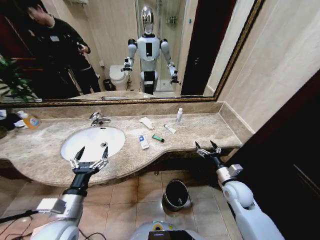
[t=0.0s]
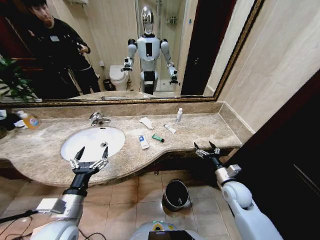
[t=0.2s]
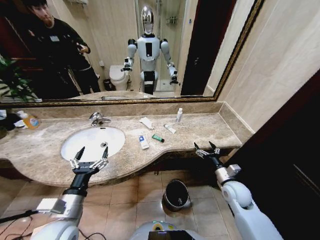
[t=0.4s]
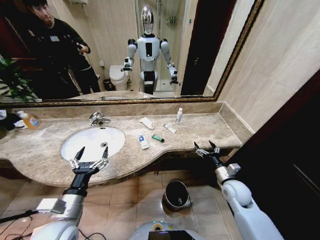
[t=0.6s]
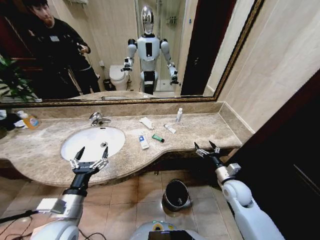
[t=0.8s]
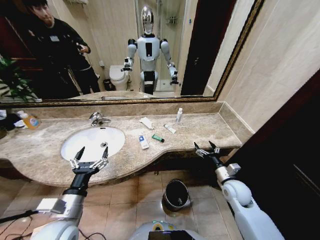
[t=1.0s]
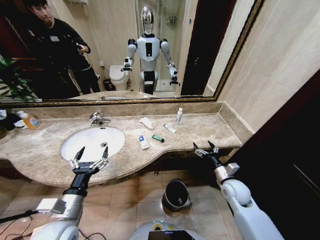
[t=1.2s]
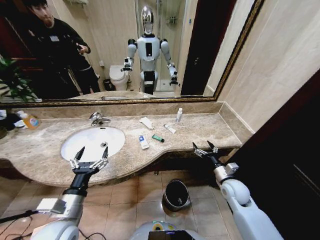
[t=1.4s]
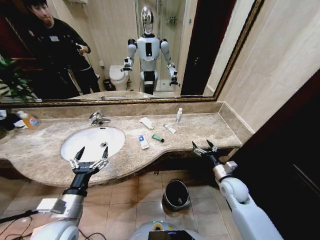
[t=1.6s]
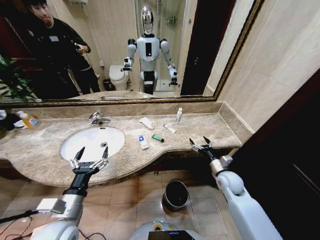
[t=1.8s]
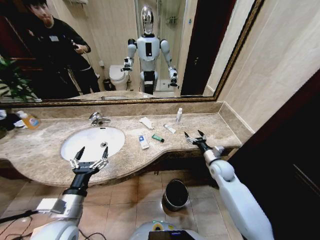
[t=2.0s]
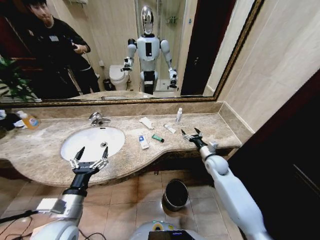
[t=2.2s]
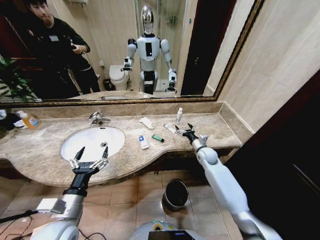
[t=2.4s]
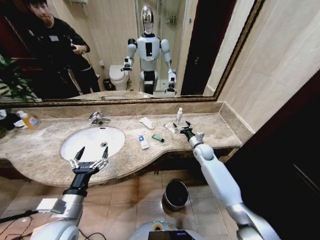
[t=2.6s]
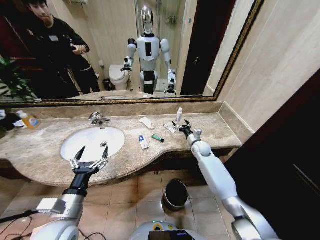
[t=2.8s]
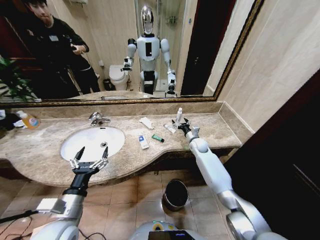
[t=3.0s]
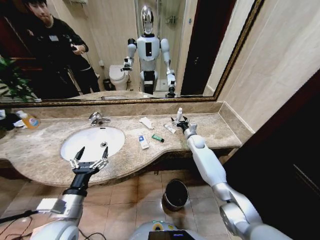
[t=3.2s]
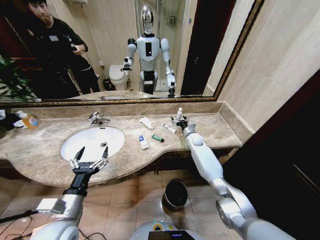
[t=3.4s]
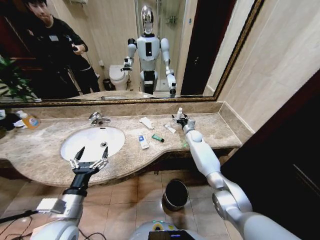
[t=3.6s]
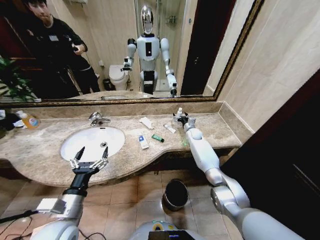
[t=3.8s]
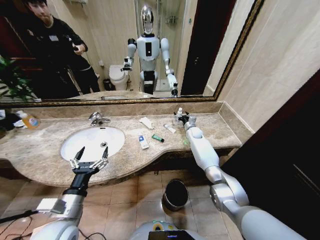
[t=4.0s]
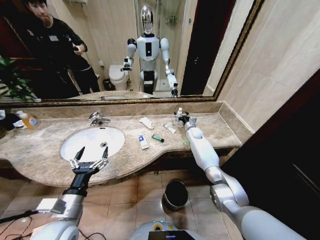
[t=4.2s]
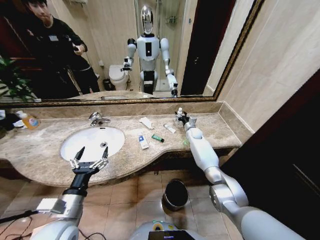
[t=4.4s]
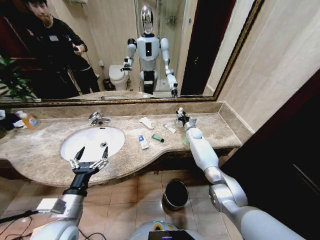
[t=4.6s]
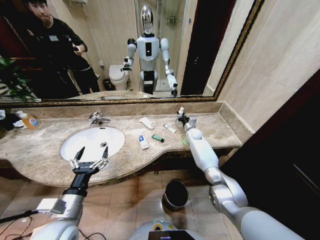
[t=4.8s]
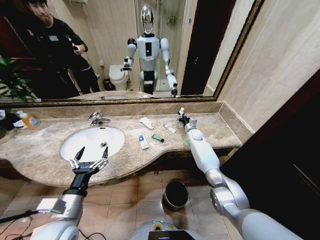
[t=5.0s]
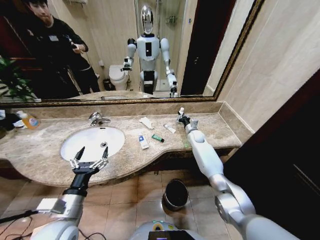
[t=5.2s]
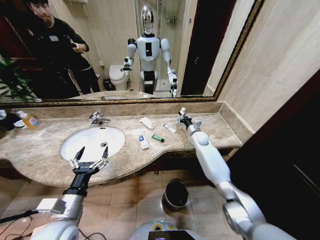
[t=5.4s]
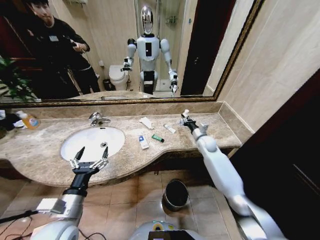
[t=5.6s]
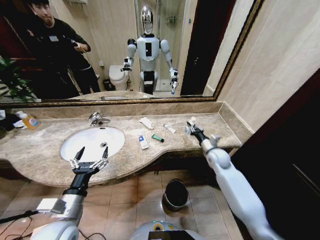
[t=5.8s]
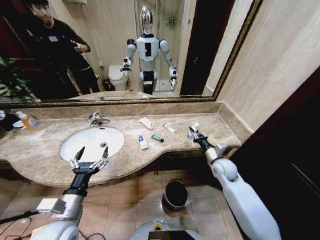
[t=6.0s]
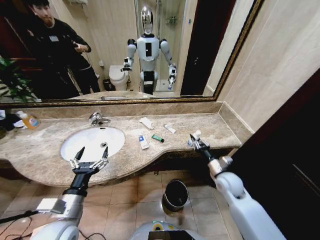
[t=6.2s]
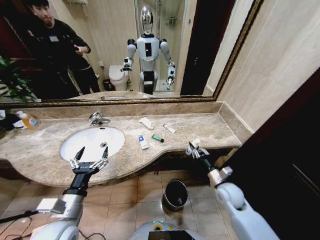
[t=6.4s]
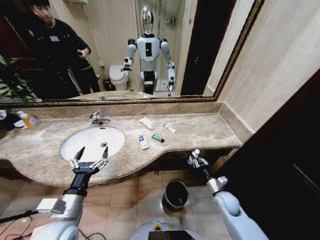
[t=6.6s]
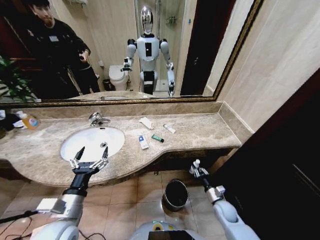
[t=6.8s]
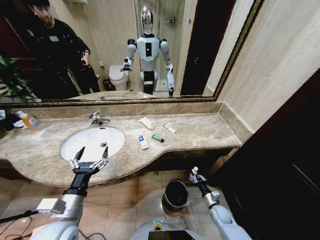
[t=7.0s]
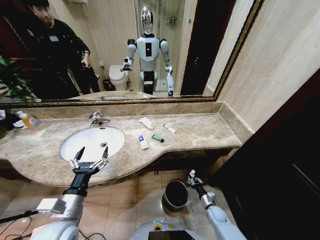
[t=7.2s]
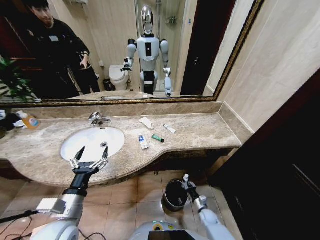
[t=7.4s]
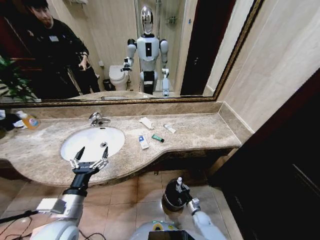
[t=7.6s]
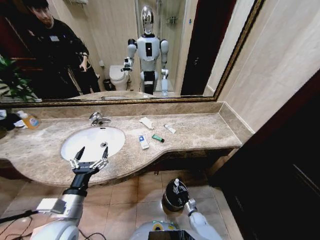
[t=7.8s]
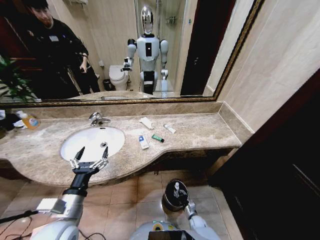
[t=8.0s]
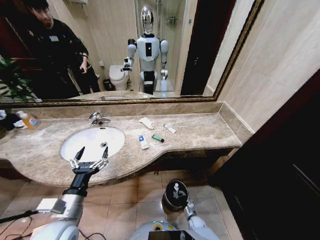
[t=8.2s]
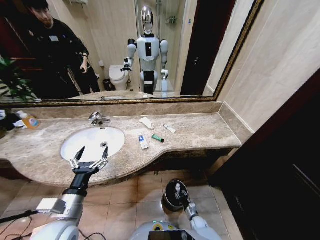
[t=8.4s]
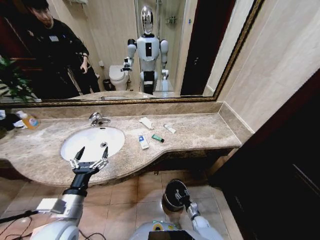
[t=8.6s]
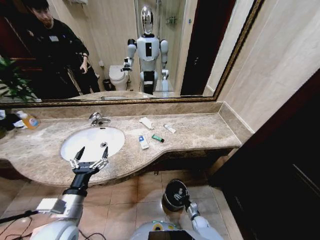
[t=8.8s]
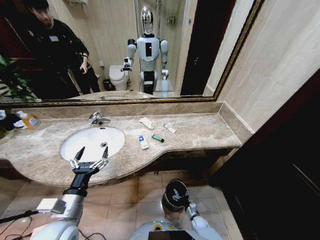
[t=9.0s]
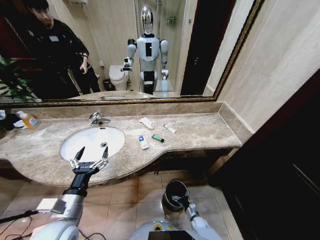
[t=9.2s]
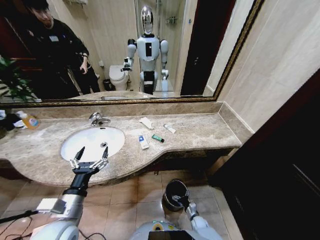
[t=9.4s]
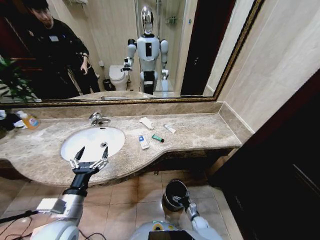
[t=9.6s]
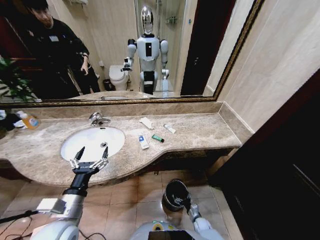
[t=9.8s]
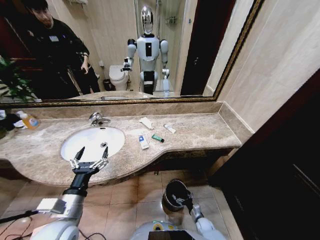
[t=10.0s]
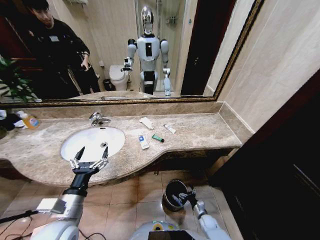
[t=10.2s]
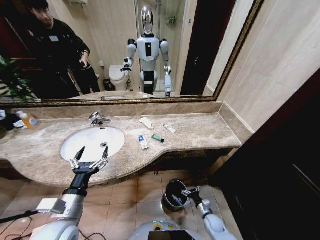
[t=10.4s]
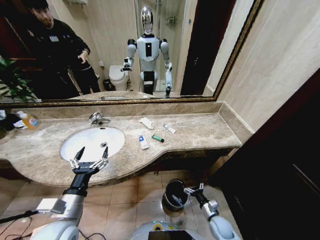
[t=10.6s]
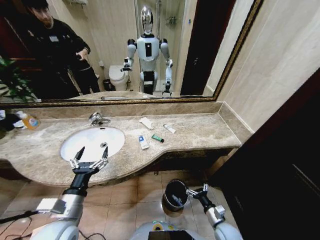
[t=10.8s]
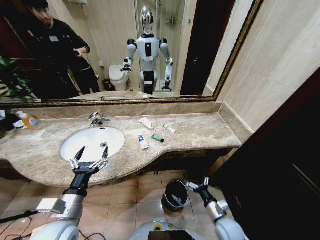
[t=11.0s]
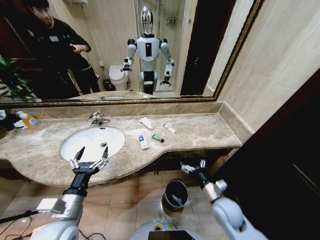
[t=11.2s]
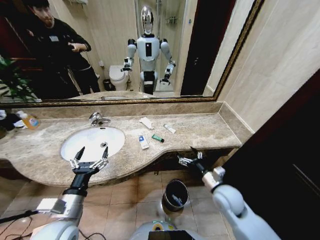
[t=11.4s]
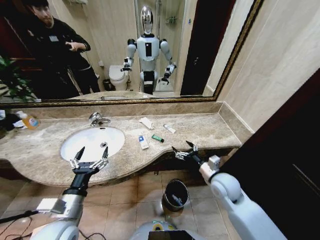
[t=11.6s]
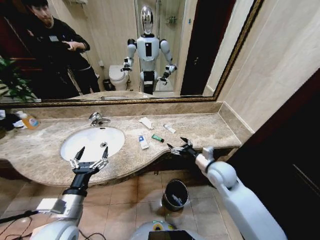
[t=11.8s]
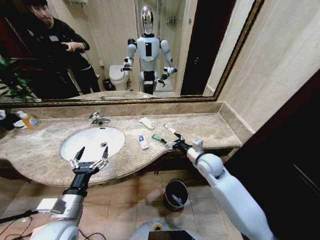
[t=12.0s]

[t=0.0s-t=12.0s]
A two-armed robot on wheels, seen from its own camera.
Task of the whole recording: Pick up the trash from the sink and place it in the trash bin.
t=1.6s to t=3.0s: The right gripper goes roughly 25 cm forward.
t=3.0s to t=4.4s: The right gripper goes some 10 cm forward.
t=4.4s to t=6.0s: The right gripper goes approximately 25 cm backward, and closes.
t=6.0s to t=7.6s: The right gripper heads downward and backward, covering about 40 cm.
t=7.6s to t=9.0s: The right gripper opens up.
t=9.0s to t=10.4s: The right gripper goes some 10 cm upward.
t=10.4s to t=12.0s: The right gripper travels upward and forward by about 40 cm.

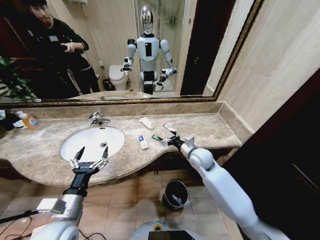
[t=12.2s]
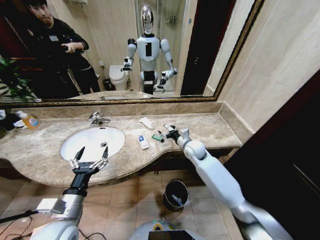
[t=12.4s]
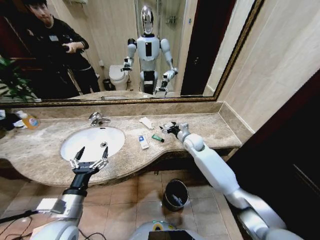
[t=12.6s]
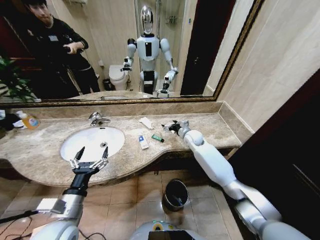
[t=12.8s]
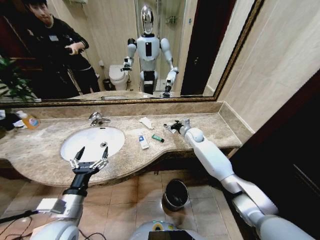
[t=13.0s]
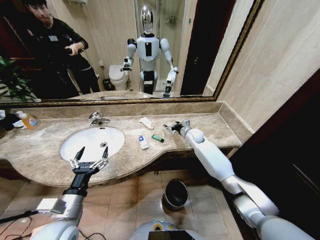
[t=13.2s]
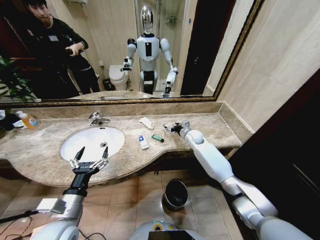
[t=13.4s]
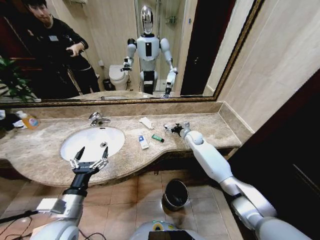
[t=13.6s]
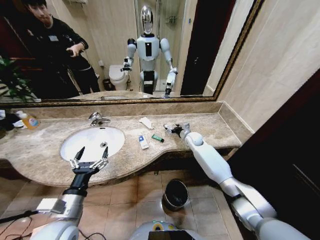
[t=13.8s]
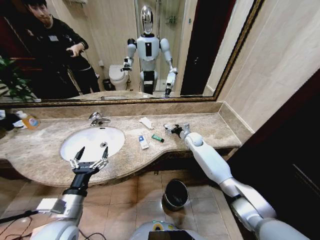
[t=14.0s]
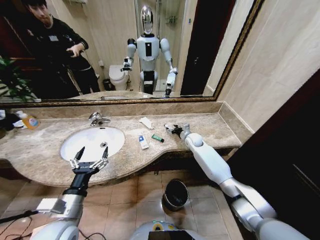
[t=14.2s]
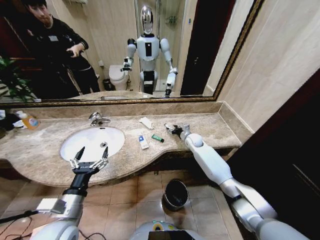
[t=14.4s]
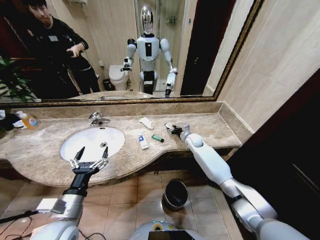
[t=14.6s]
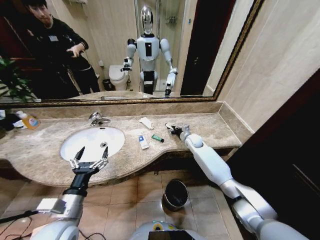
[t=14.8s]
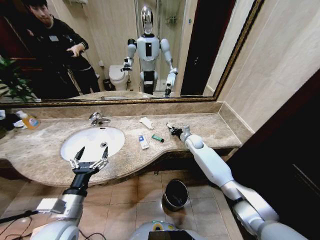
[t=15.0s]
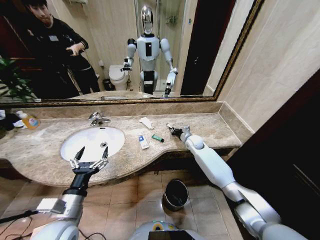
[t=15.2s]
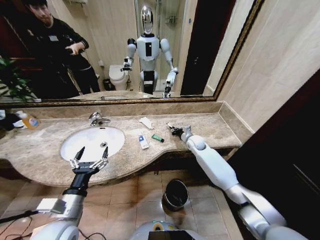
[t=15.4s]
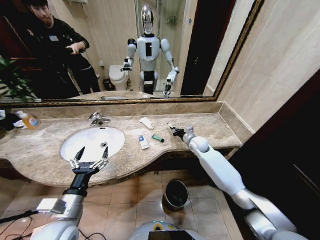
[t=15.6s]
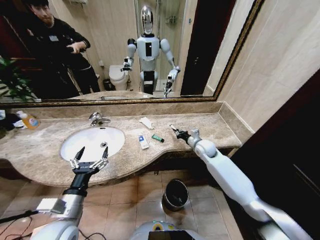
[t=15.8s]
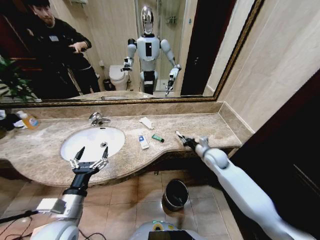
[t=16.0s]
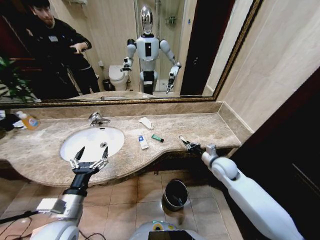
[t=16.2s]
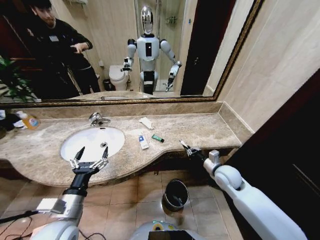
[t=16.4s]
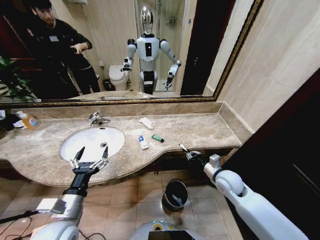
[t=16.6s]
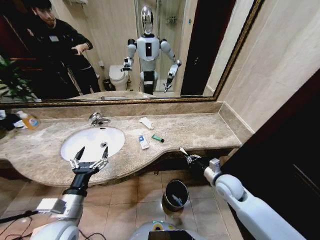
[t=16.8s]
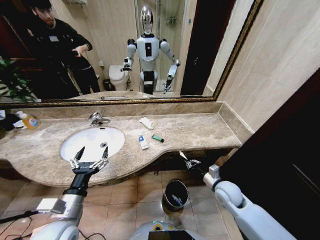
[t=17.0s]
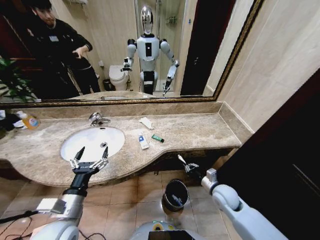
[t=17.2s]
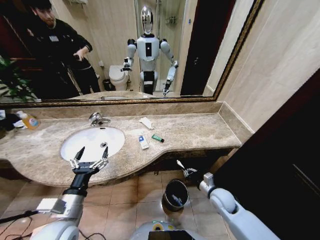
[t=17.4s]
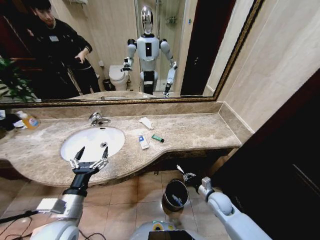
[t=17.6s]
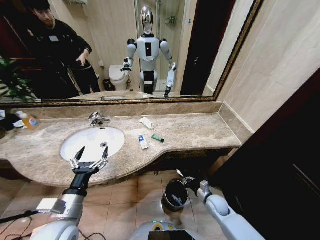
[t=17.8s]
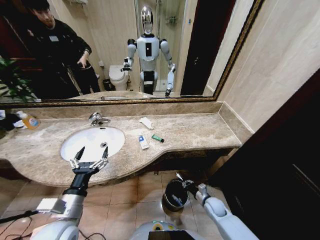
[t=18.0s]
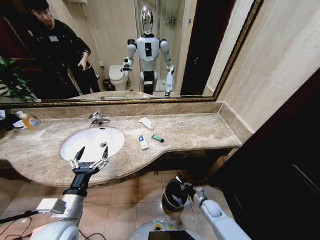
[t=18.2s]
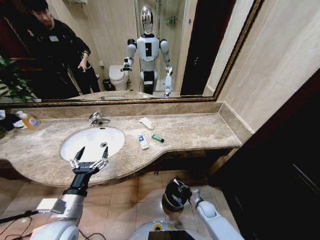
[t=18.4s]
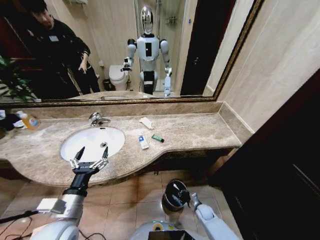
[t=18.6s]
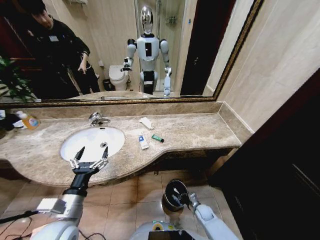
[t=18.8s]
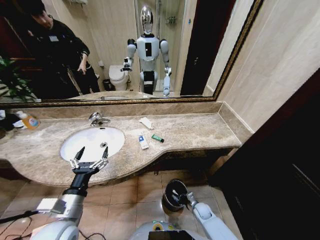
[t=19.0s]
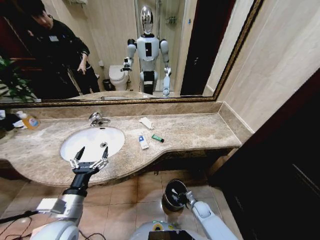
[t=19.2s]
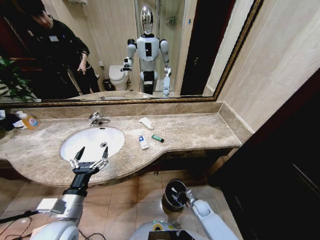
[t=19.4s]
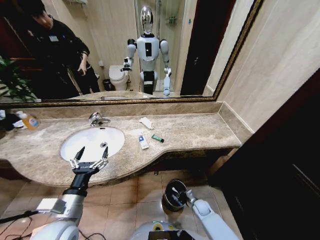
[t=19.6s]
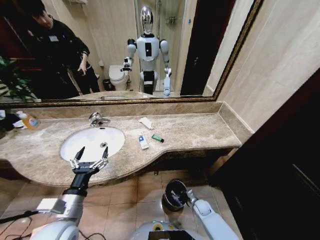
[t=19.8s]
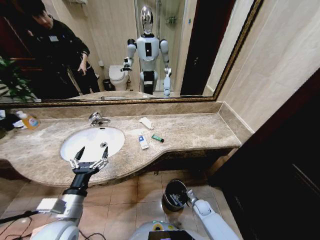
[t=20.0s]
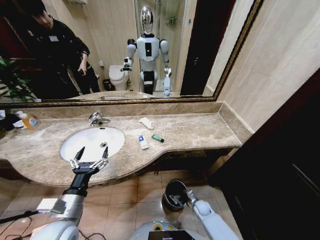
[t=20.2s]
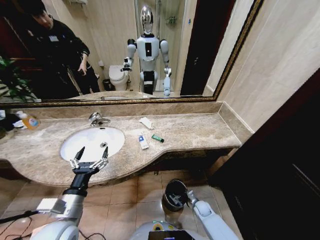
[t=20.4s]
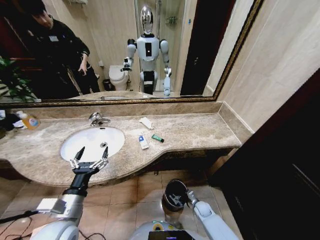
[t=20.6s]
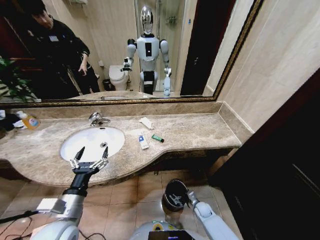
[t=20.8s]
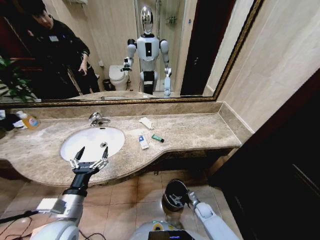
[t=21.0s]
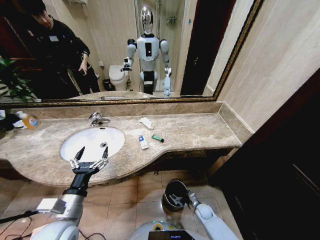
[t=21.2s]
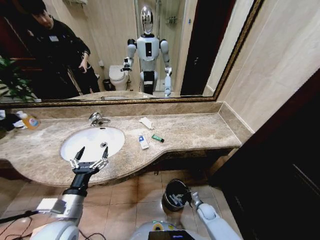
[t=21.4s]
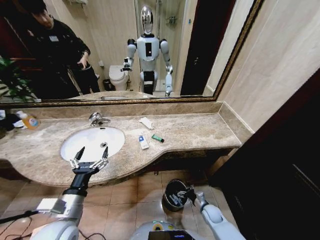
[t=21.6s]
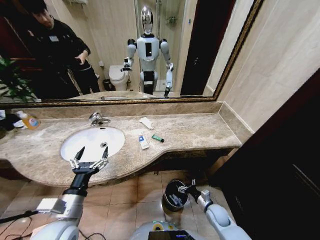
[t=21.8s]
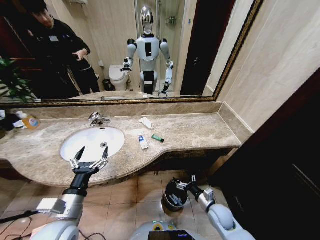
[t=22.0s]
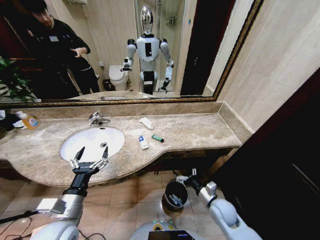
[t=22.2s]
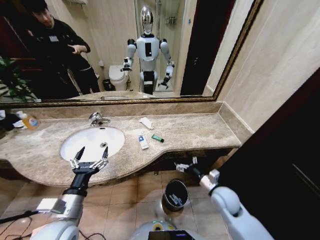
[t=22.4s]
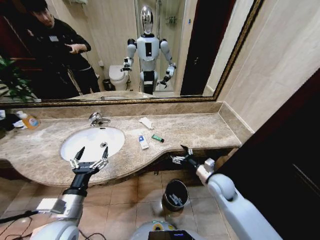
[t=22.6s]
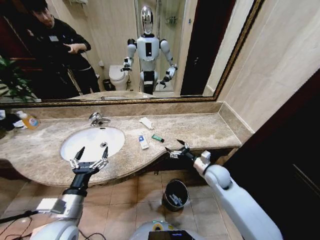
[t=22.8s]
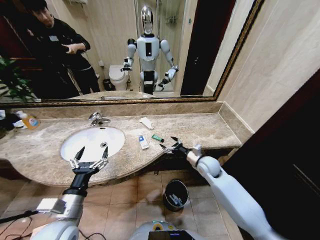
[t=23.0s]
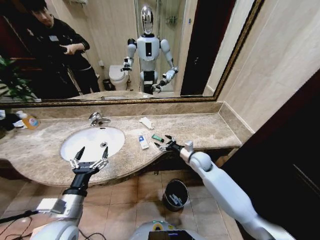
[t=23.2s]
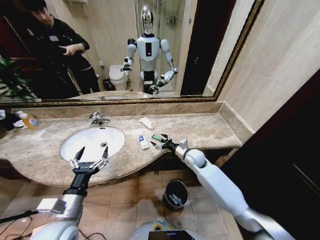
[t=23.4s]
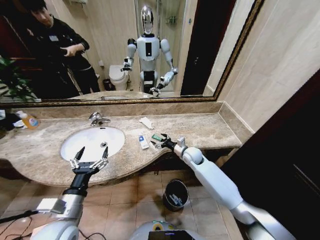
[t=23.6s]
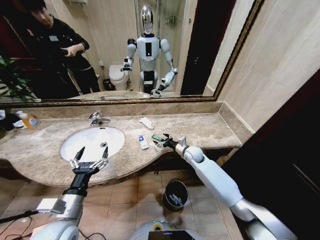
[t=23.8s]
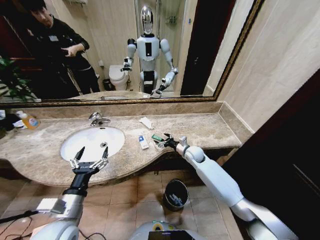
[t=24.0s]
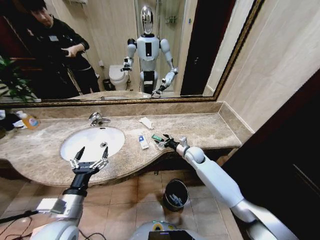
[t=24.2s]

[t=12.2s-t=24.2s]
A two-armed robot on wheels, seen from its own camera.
Task of the whole recording: Pick up the trash from the sink and place it in the trash bin.
t=12.2s to t=13.8s: The right gripper heads forward, covering some 15 cm.
t=13.8s to t=15.2s: The right gripper closes its fingers.
t=15.2s to t=16.6s: The right gripper shifts about 25 cm backward.
t=16.6s to t=18.2s: The right gripper goes roughly 25 cm downward.
t=18.2s to t=19.8s: The right gripper shifts by roughly 5 cm.
t=19.8s to t=21.2s: The right gripper opens its fingers.
t=21.2s to t=22.6s: The right gripper moves upward, approximately 30 cm.
t=22.6s to t=24.2s: The right gripper shifts approximately 15 cm forward.
